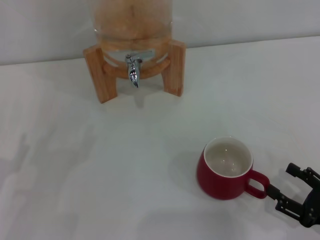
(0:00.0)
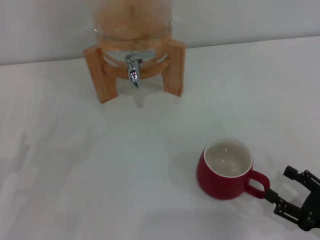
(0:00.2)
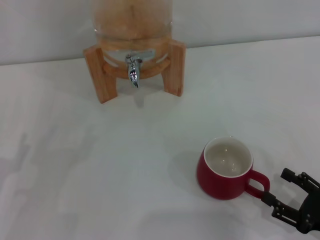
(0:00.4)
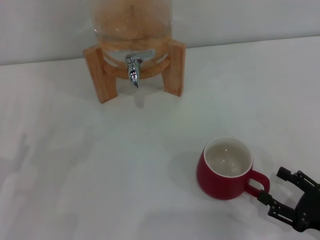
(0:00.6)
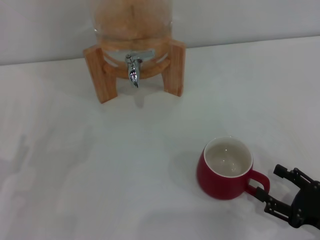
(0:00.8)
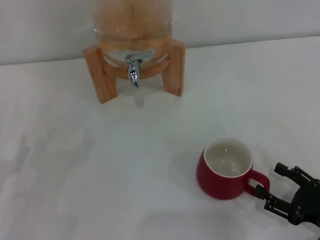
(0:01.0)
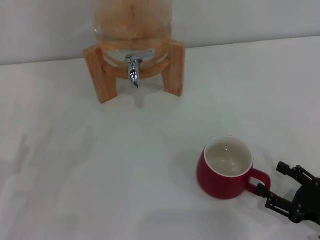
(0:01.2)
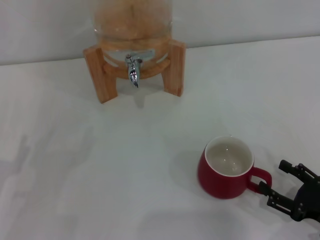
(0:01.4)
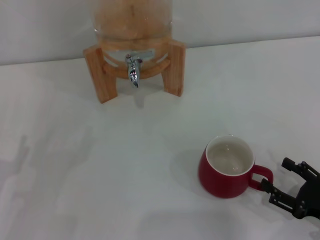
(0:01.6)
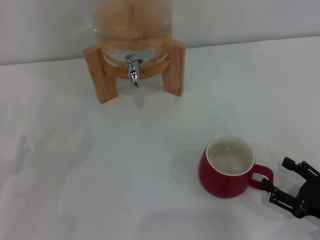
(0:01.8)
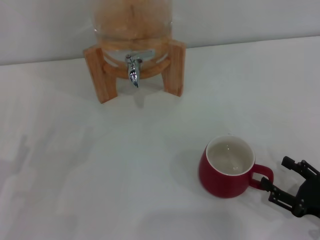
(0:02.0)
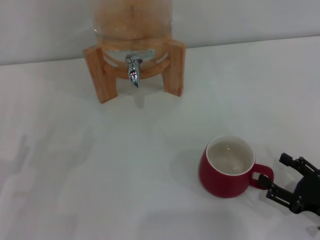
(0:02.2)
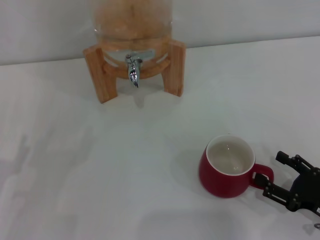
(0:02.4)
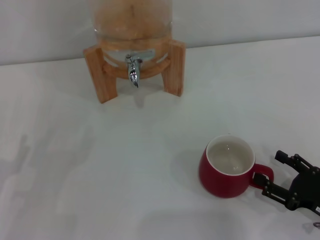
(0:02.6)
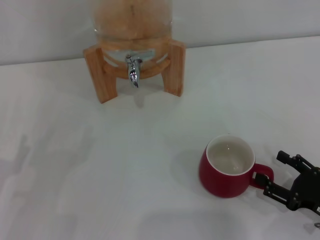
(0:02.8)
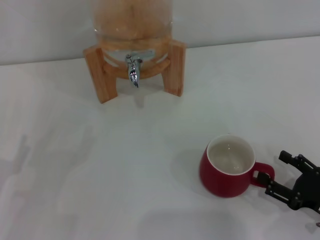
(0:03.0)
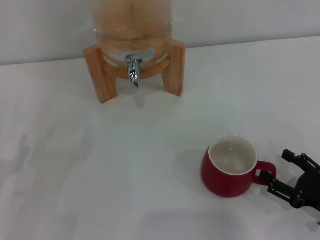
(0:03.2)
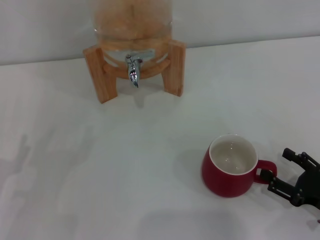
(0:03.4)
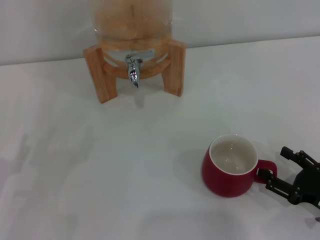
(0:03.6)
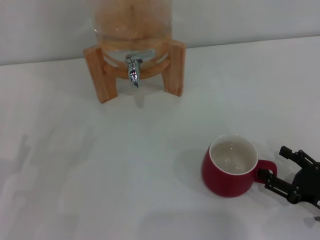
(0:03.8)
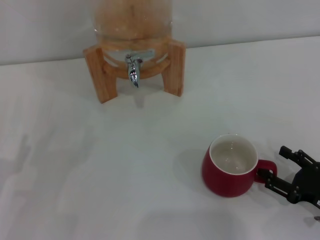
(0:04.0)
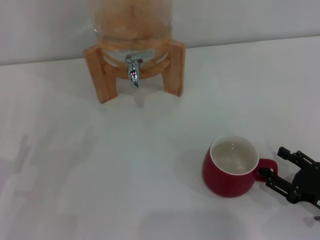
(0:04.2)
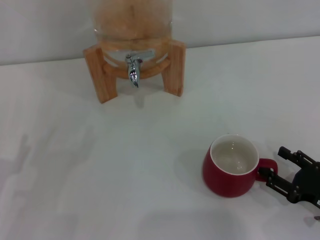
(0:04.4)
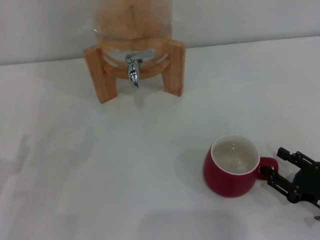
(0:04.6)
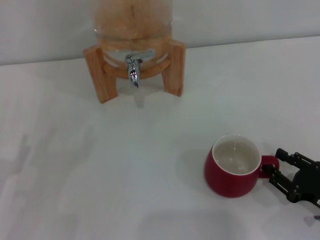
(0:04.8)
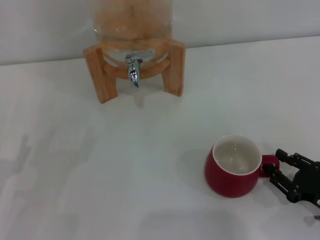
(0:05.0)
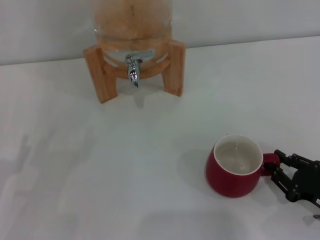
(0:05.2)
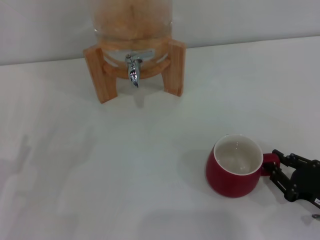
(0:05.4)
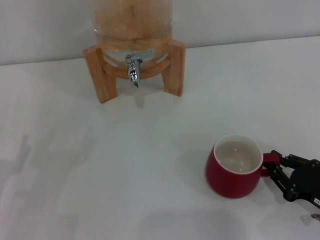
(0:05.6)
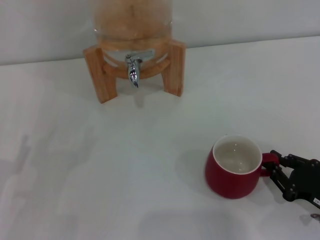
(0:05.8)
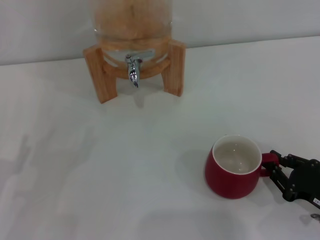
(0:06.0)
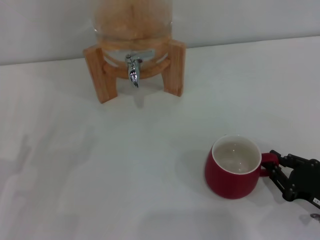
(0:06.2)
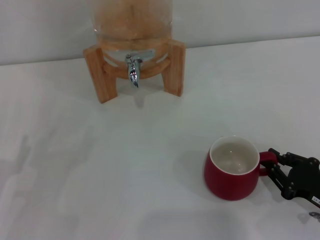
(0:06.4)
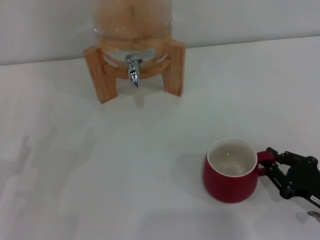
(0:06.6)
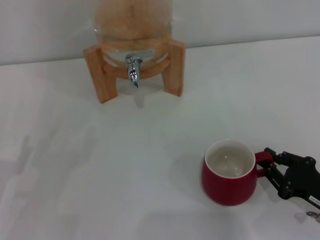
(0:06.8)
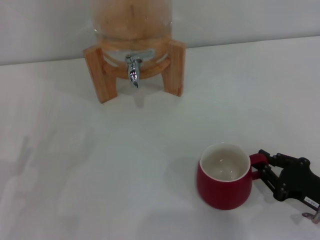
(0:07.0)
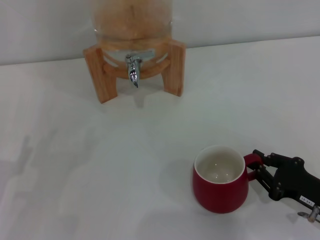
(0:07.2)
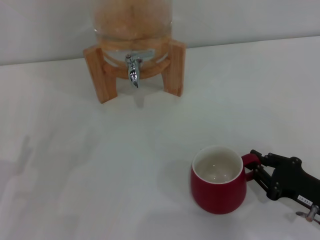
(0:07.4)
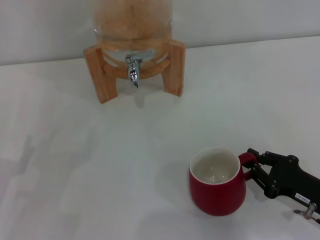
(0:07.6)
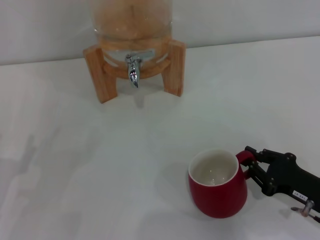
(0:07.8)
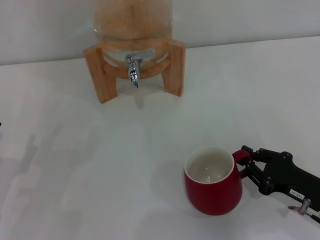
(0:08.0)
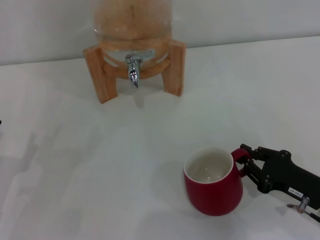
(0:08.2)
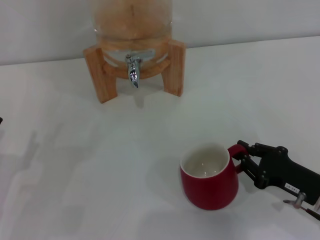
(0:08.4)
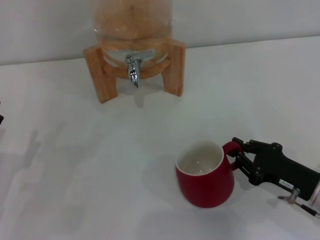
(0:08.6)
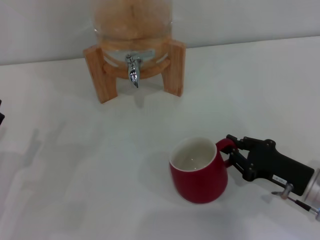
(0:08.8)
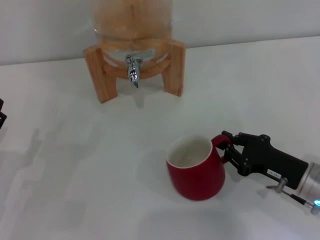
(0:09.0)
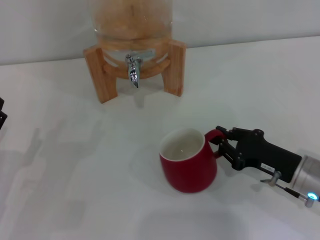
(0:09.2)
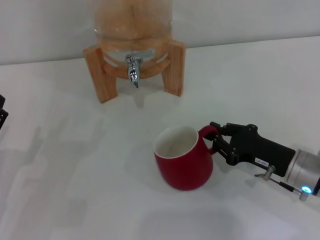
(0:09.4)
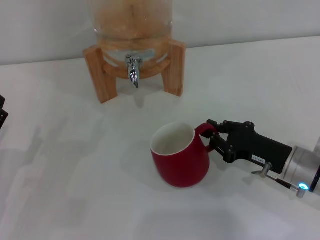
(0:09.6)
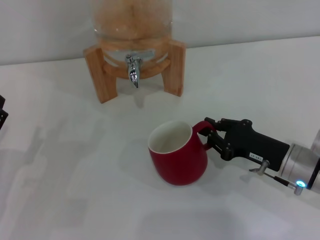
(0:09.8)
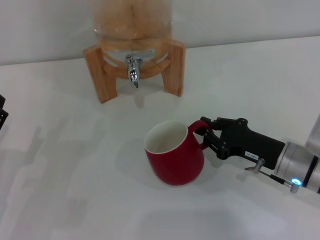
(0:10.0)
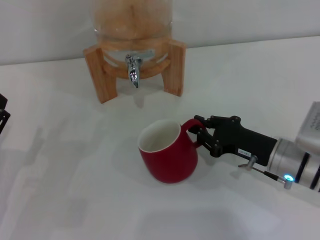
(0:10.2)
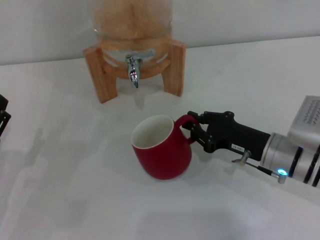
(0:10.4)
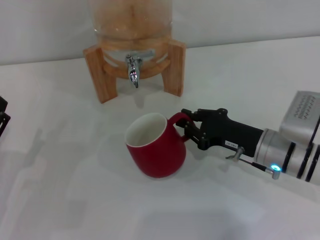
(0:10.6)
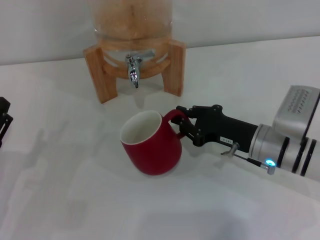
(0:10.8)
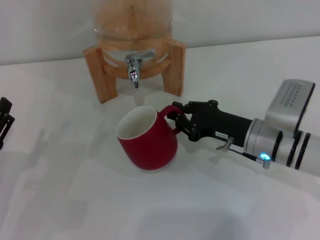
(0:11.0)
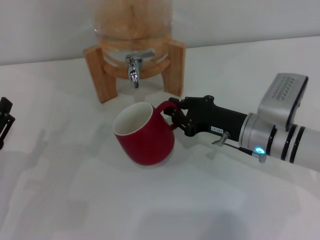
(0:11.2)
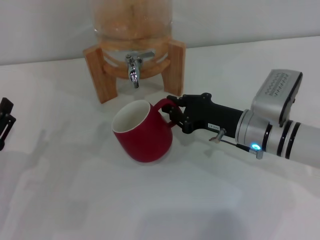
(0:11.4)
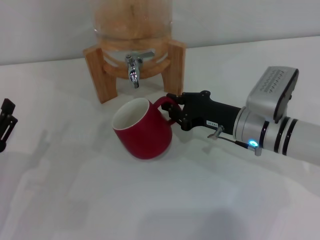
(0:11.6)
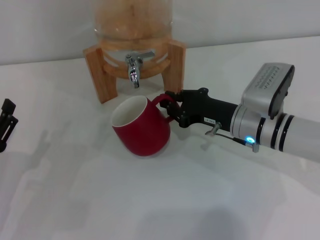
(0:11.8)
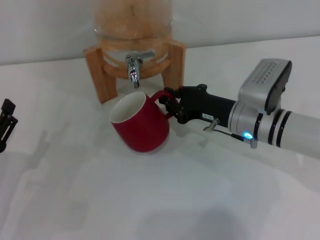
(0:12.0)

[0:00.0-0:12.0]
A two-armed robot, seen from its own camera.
Task of the whole recording: the right gripper pick up the red cup and place it horizontally under the faucet, the left gripper turn on the faucet to fill the cup, and then turn off the faucet.
0:00.0 to 0:03.0: The grippers move only a little.
0:03.0 to 0:04.4: Both grippers stay about where they are.
0:04.4 to 0:06.0: The right gripper closes up.
0:06.0 to 0:07.6: There are only small adjustments of the grippers.
0:07.6 to 0:09.0: The right gripper changes place by approximately 5 cm.
0:09.0 to 0:10.4: The right gripper travels forward by approximately 5 cm.
0:10.4 to 0:12.0: The right gripper travels forward by some 5 cm.

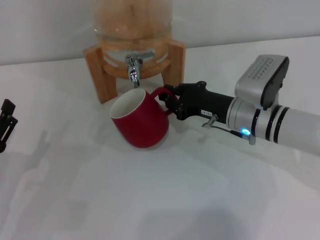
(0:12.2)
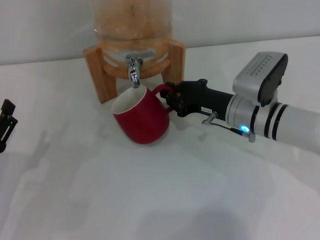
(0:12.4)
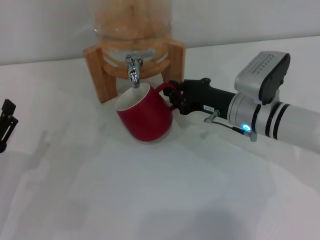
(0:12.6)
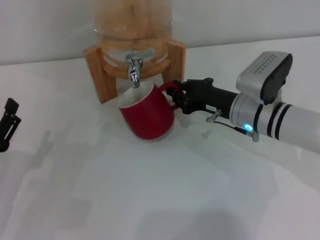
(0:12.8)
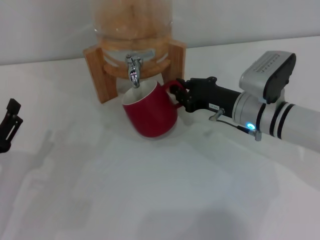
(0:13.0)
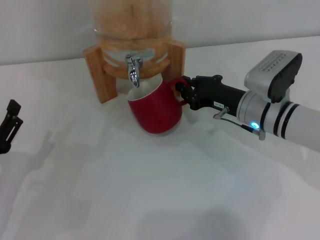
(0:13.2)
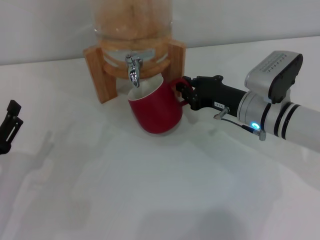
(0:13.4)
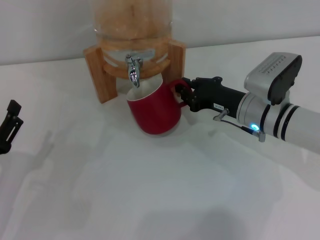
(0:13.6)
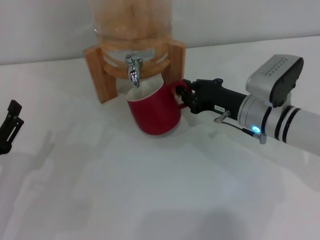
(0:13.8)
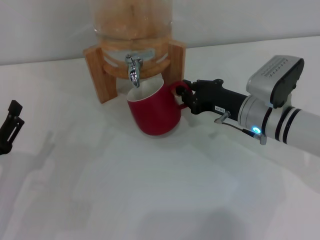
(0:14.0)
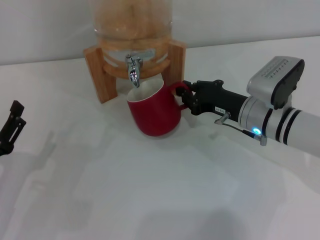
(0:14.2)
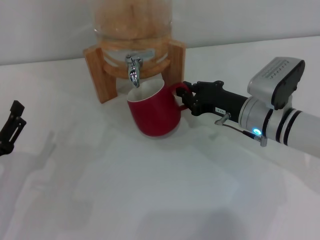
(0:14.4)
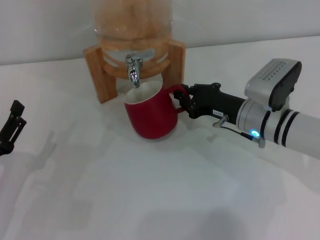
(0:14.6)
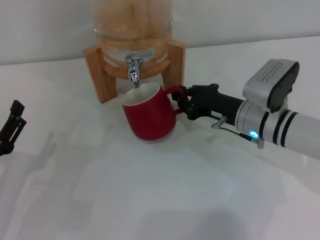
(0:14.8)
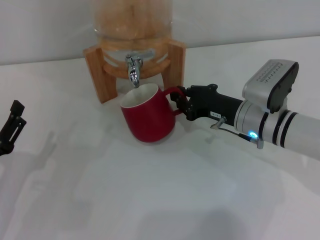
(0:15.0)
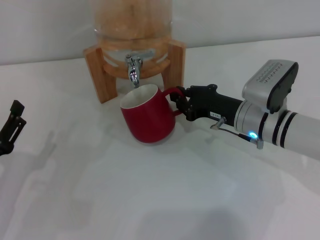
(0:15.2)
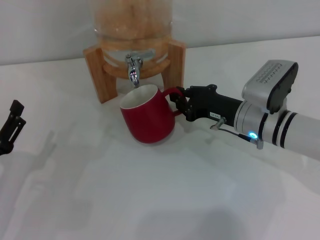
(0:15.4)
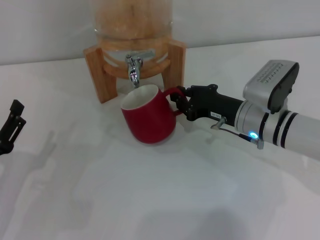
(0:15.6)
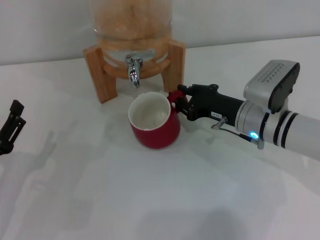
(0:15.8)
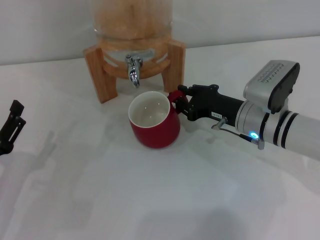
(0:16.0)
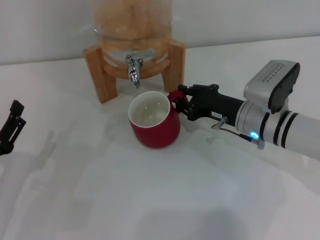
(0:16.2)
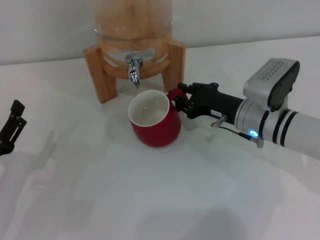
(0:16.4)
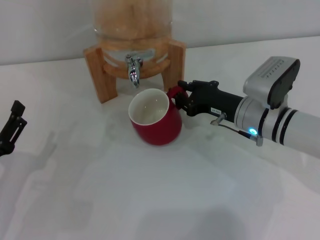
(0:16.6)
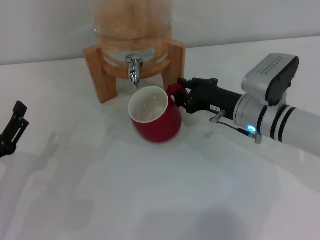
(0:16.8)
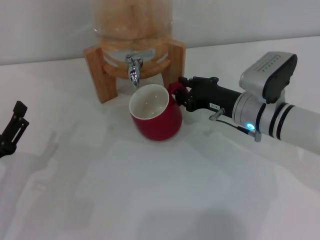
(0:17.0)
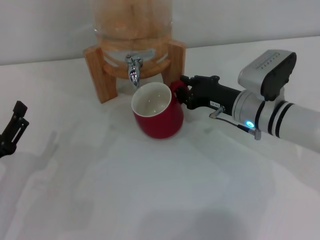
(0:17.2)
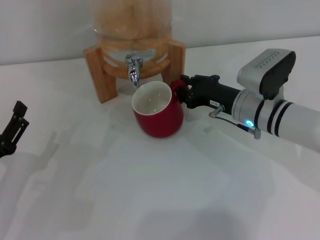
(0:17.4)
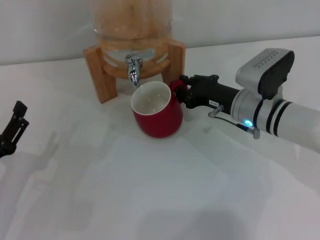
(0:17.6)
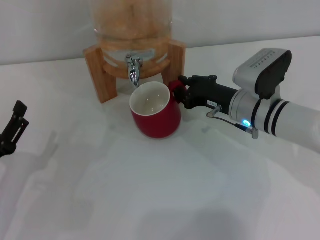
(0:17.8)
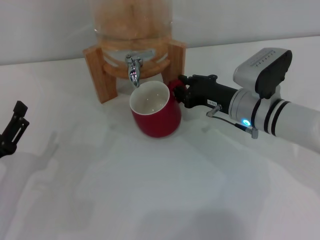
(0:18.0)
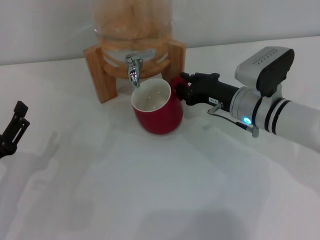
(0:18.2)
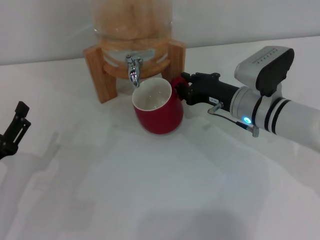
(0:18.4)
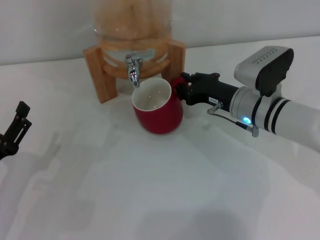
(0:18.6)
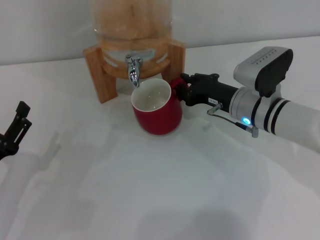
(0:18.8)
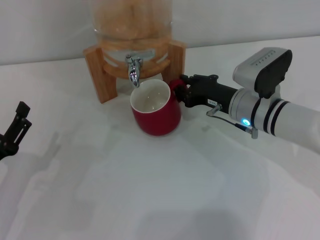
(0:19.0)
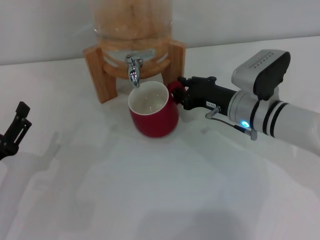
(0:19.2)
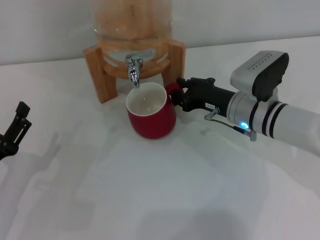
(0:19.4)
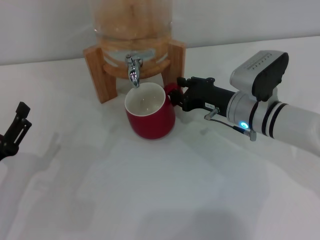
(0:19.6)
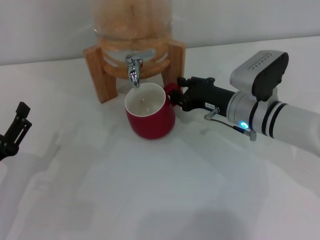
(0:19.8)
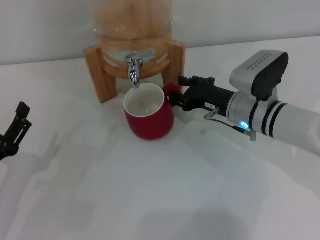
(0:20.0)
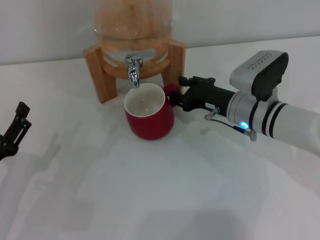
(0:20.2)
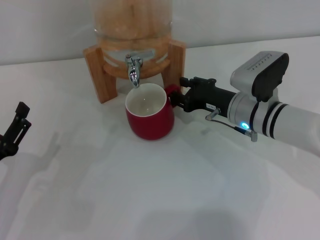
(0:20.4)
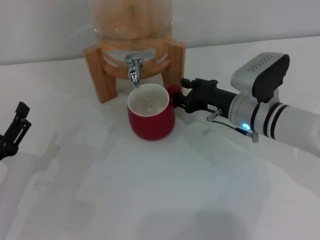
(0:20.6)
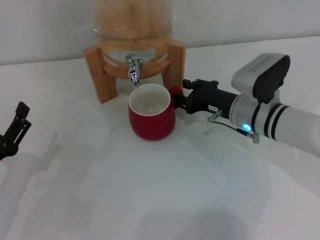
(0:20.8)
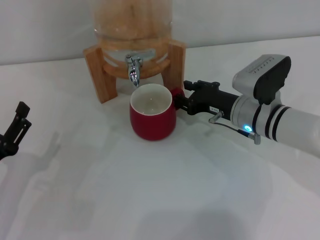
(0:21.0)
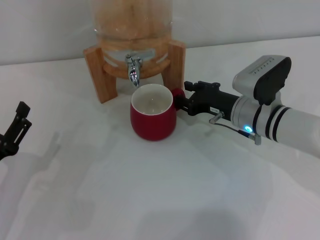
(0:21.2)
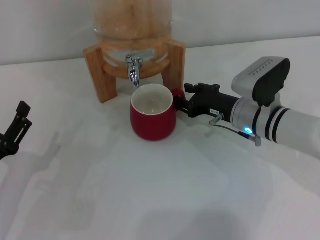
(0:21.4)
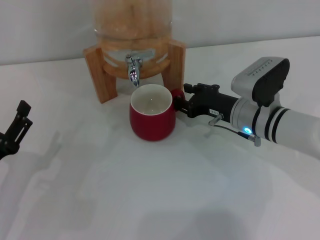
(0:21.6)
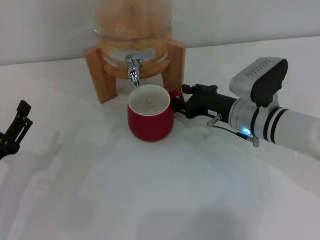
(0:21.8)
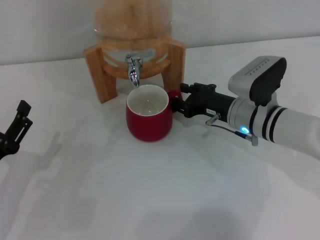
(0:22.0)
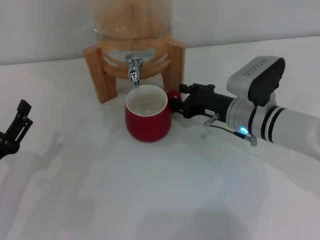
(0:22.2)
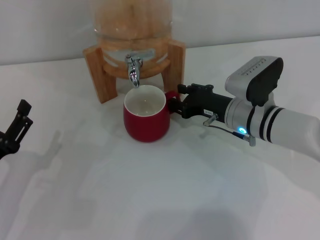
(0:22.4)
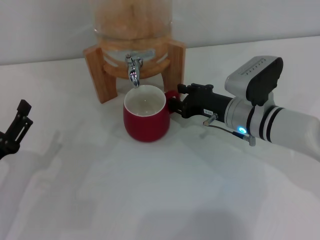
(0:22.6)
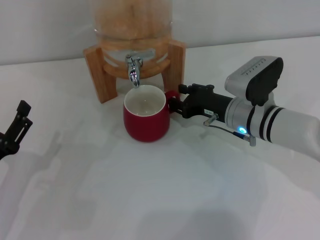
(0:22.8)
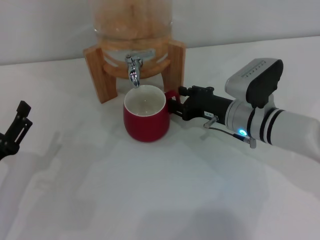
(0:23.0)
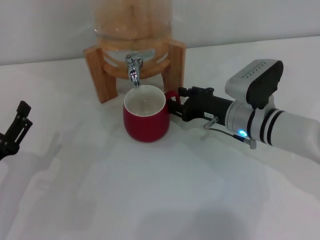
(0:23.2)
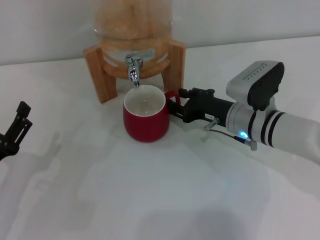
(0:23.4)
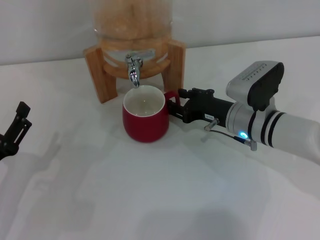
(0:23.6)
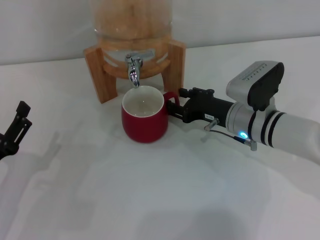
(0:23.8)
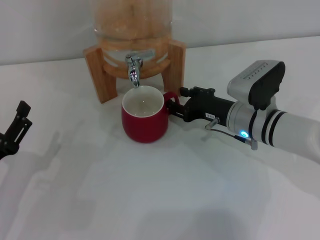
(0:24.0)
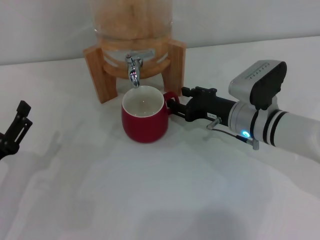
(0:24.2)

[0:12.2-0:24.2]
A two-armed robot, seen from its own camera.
Task of the whole recording: the right gripper pick up the red cup and place it horizontally under the faucet, the left gripper turn on the faucet to fill the cup, and then turn off the faucet.
0:12.2 to 0:13.8: The grippers stay close to where they were, moving slightly.
0:13.8 to 0:16.6: Both grippers stay about where they are.
0:16.6 to 0:18.2: The grippers stay close to where they were, moving slightly.
0:18.2 to 0:21.2: Both grippers stay put.
0:21.2 to 0:24.2: The two grippers keep their place.
